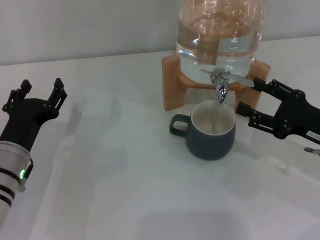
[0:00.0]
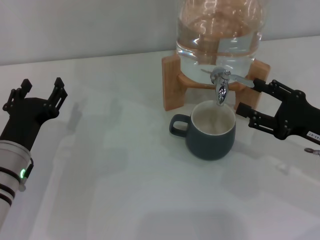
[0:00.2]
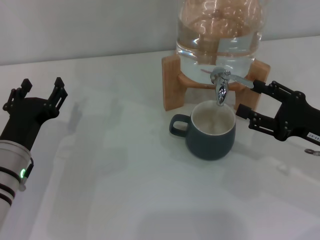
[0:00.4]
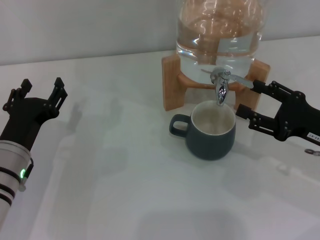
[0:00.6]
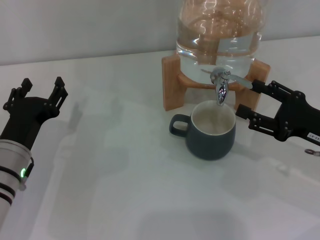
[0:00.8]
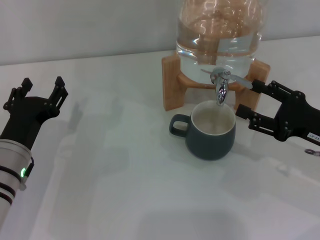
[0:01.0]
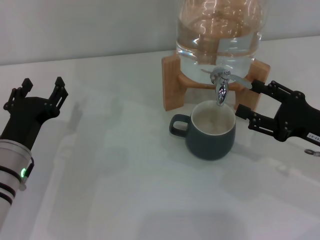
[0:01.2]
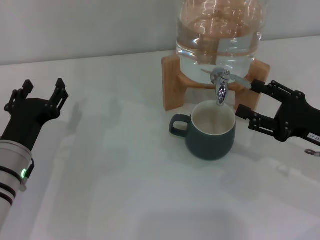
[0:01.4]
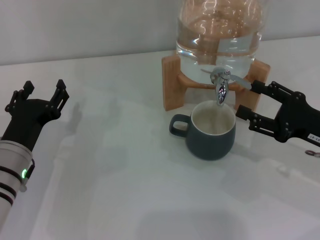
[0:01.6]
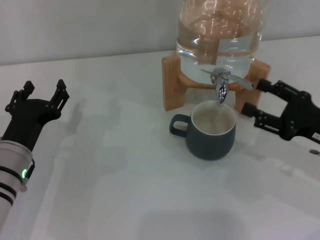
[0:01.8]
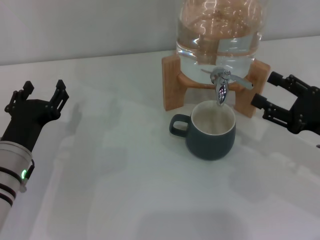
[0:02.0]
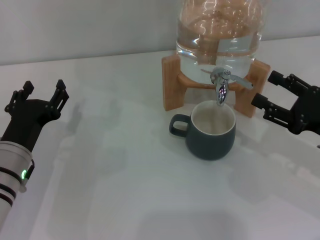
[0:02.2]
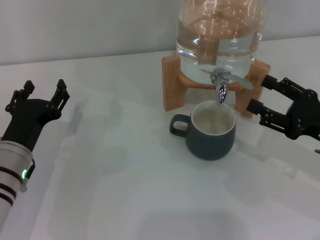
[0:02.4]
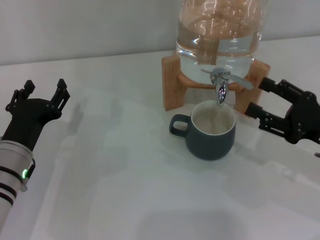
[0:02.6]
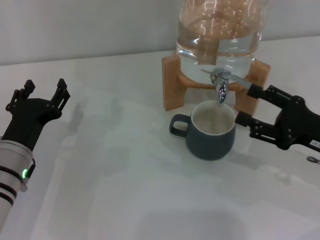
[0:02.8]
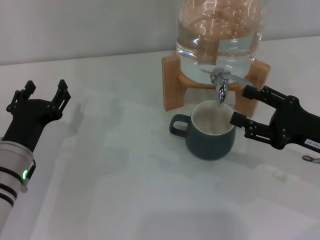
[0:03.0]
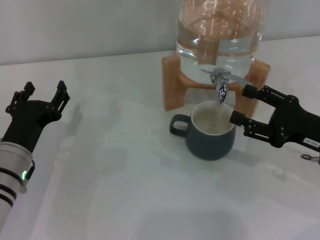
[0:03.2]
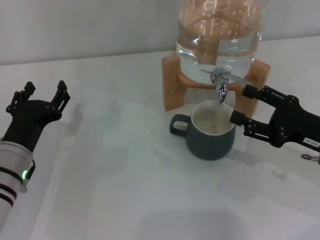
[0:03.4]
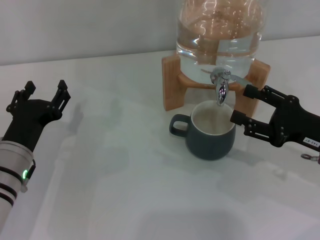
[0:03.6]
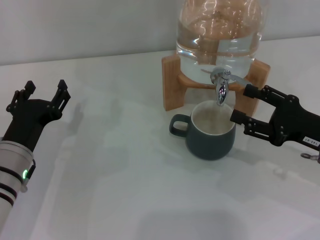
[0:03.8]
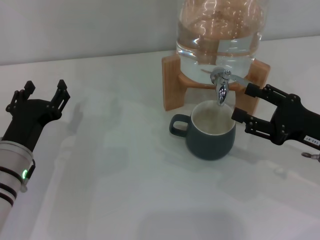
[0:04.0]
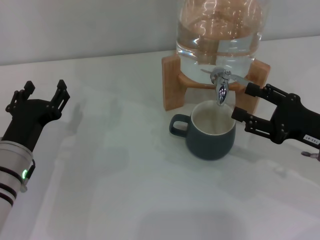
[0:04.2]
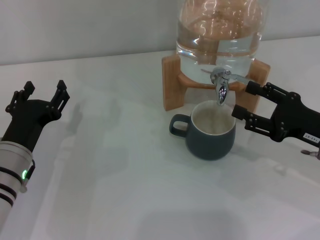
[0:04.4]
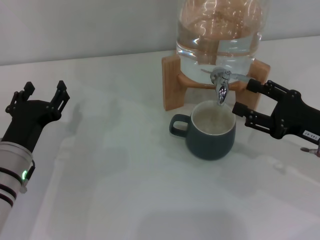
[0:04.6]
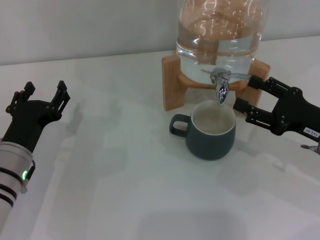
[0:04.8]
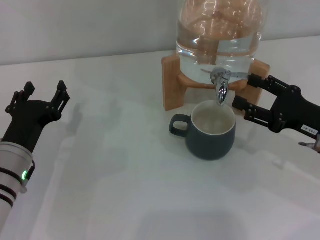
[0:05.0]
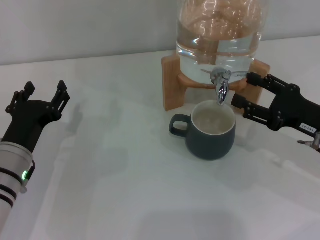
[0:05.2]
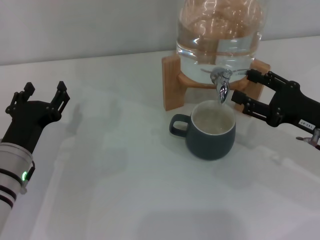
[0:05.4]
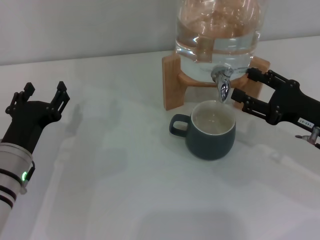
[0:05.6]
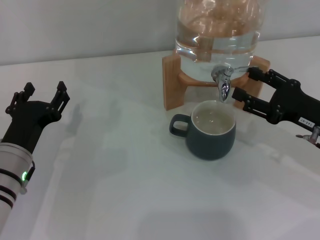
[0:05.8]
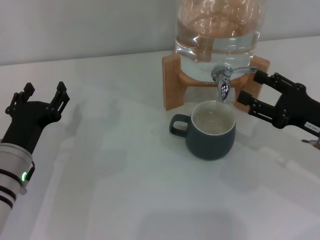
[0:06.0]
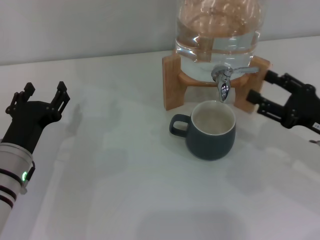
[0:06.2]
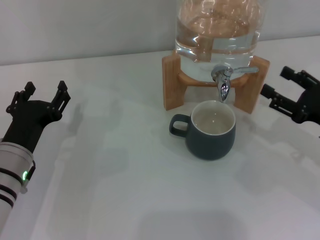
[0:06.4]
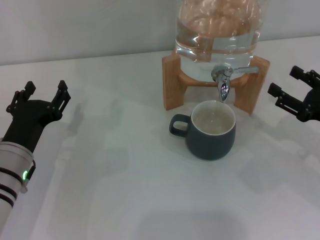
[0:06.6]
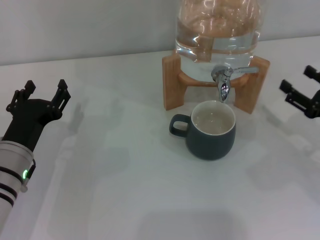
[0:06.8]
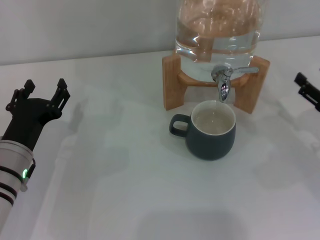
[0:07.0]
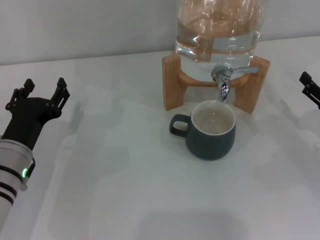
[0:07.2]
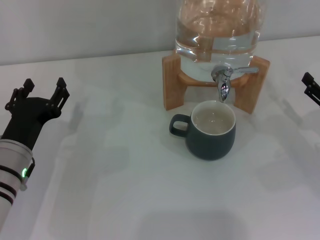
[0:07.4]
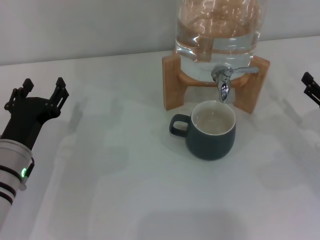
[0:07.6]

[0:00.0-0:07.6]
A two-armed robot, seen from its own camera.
Task of the whole recording: the left gripper pick up the black cup and place it horizontally under the faucet, the right gripper turn on the faucet to fill the cup, and then turn off the faucet.
Step, 0:02.0 to 0:05.8: Close the dispenser valve with the right gripper.
0:00.0 to 0:01.6: Both grippers stay about where they are.
0:01.6 to 0:06.0: The grippers move only a little.
0:06.0 to 0:07.6: The right gripper shifts by about 5 cm.
